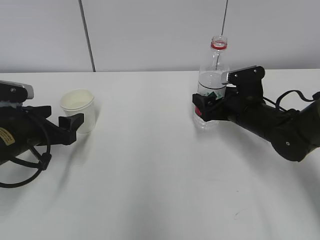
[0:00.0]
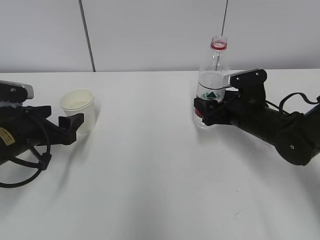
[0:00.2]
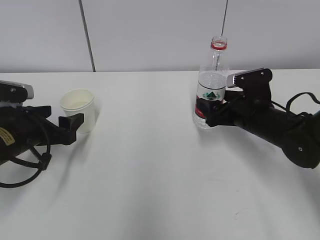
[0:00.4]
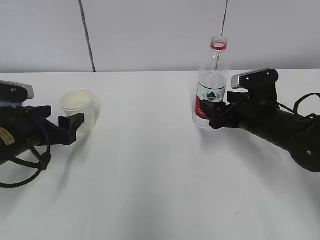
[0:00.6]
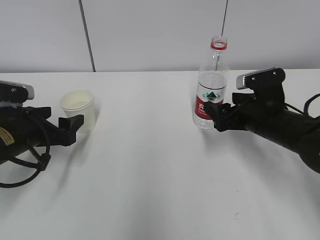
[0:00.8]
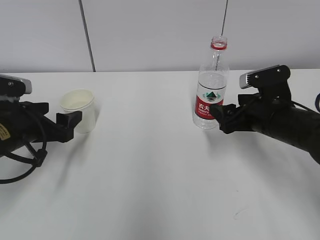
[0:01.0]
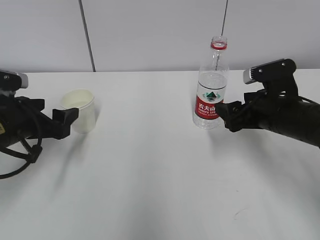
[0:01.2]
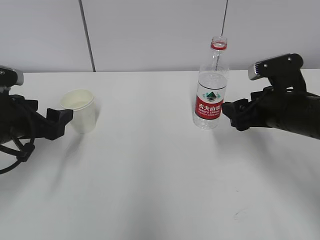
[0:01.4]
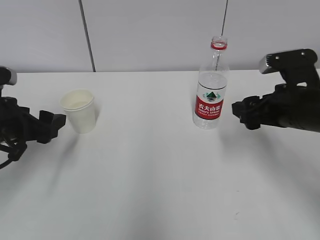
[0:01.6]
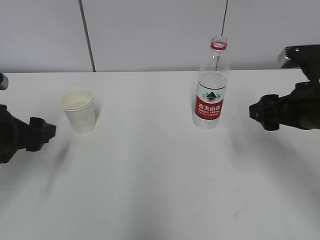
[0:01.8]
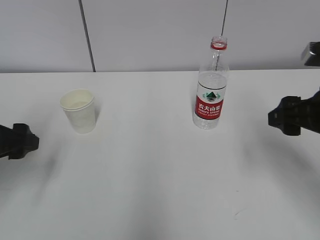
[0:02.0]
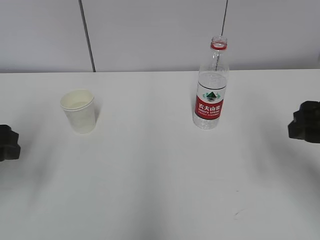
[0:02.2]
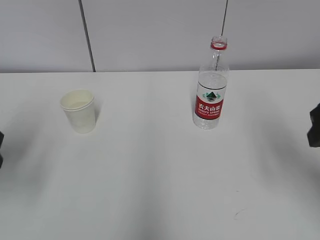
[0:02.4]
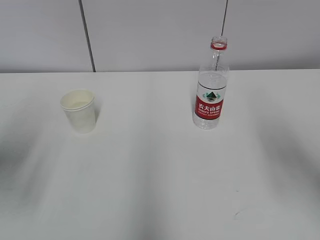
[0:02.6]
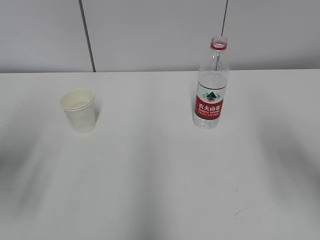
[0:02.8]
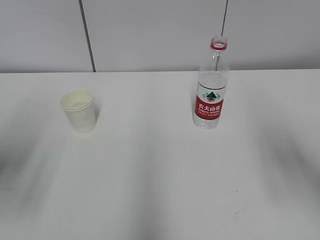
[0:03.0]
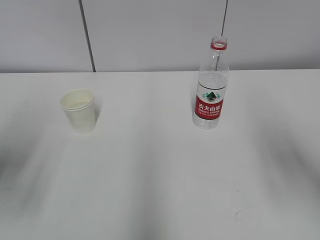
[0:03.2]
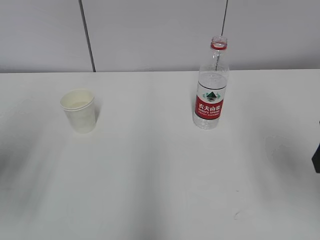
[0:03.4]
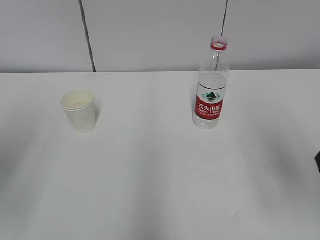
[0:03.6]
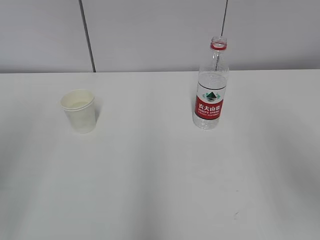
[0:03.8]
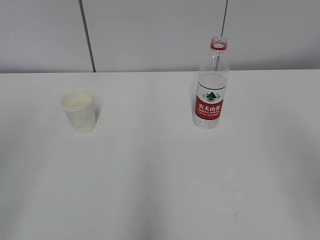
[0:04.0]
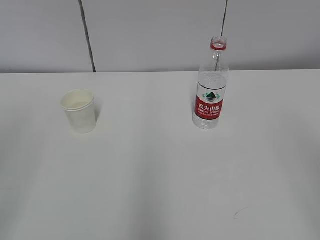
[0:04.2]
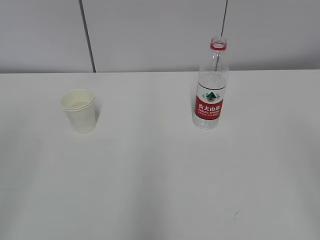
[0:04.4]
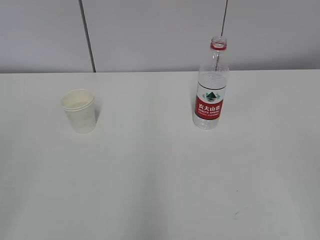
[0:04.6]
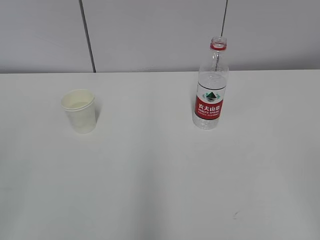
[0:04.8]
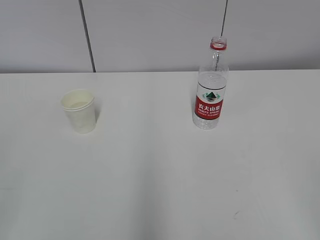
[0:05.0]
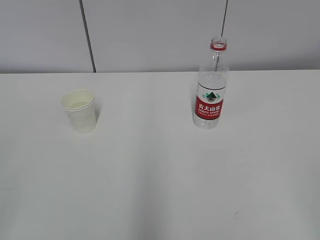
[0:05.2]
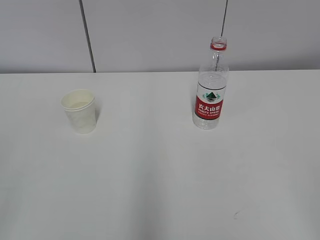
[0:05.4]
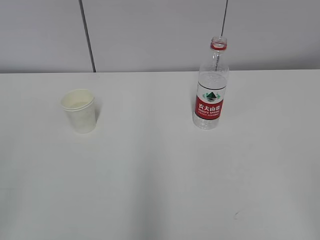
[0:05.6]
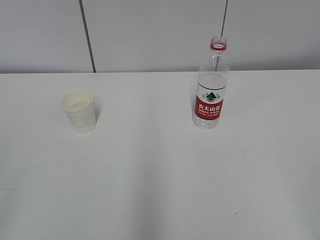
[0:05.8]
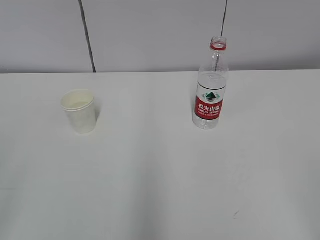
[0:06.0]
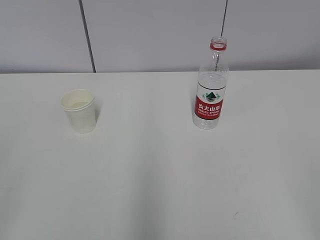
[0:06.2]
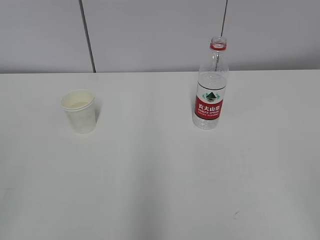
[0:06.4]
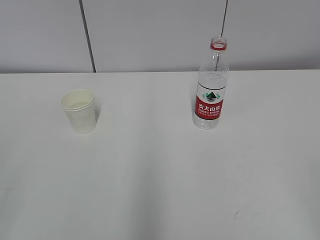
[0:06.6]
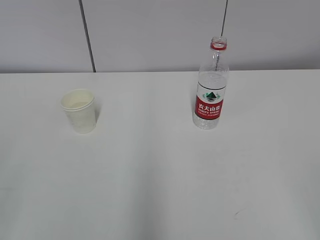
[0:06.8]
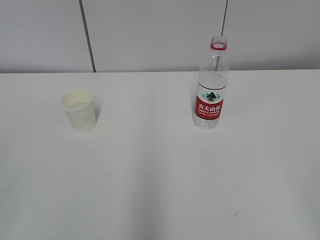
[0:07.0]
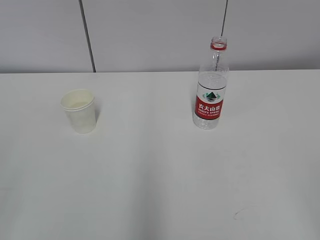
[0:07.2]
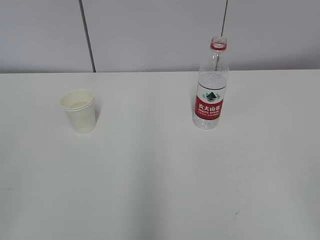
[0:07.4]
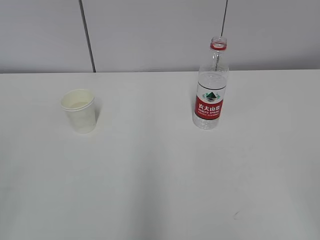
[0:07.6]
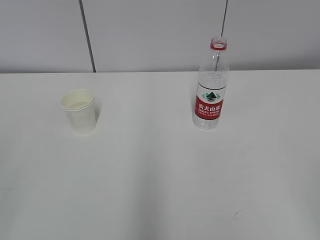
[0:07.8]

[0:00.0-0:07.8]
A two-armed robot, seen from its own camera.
0:00.0 to 0:01.6: The left gripper changes place by roughly 5 cm, while the right gripper shifts roughly 10 cm backward and upward, and closes up.
0:01.6 to 0:03.2: The left gripper is displaced upward and backward by roughly 15 cm; the right gripper goes about 15 cm backward and upward.
0:03.2 to 0:04.6: Both grippers move backward, some 20 cm.
